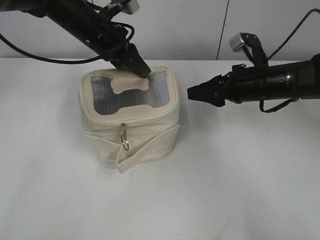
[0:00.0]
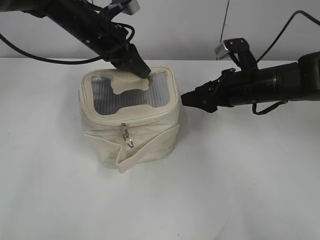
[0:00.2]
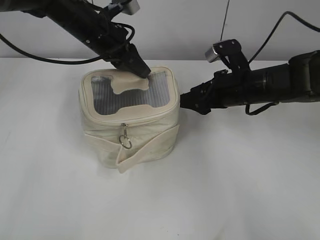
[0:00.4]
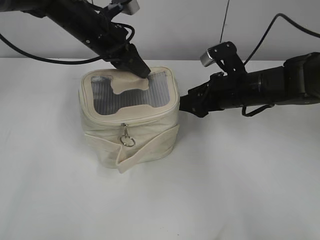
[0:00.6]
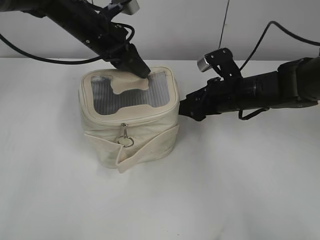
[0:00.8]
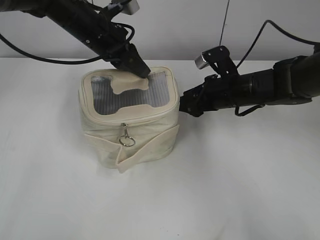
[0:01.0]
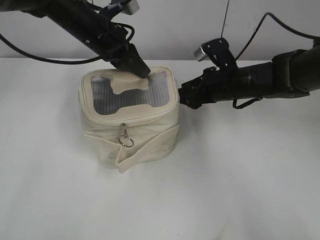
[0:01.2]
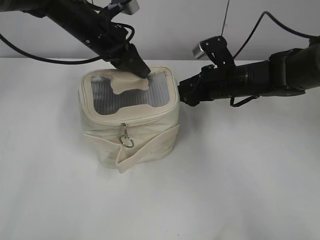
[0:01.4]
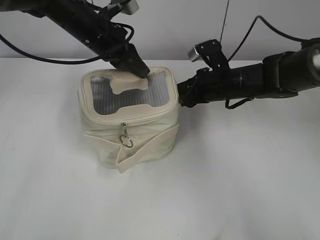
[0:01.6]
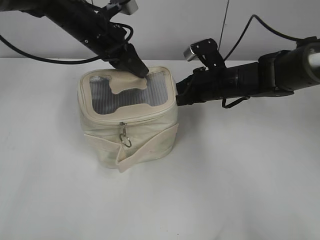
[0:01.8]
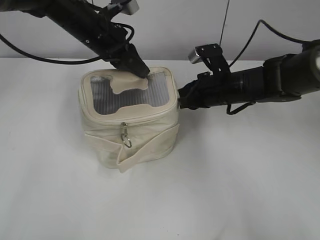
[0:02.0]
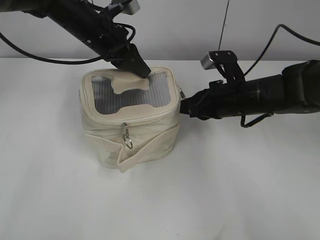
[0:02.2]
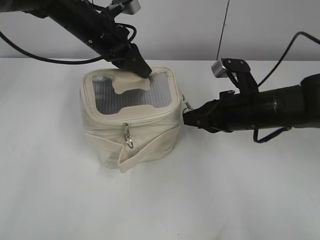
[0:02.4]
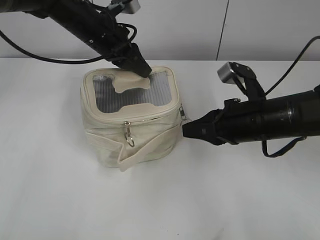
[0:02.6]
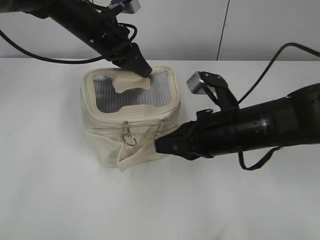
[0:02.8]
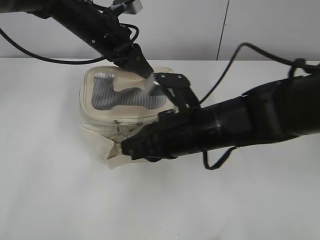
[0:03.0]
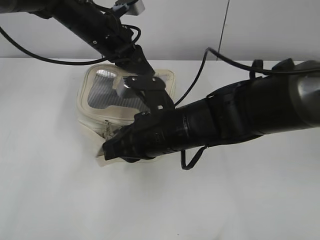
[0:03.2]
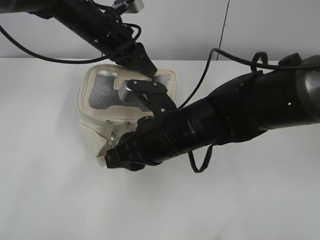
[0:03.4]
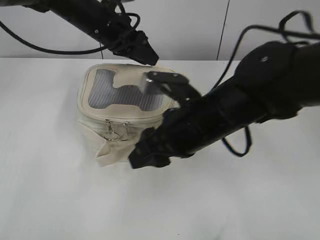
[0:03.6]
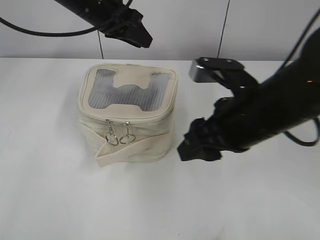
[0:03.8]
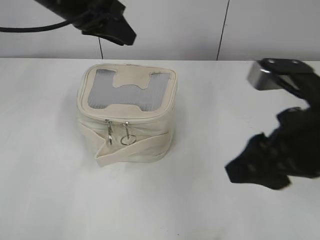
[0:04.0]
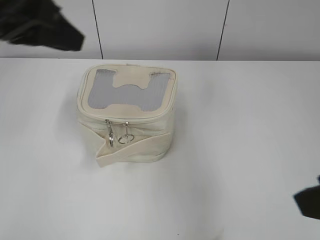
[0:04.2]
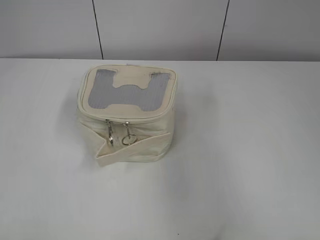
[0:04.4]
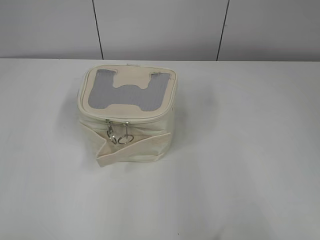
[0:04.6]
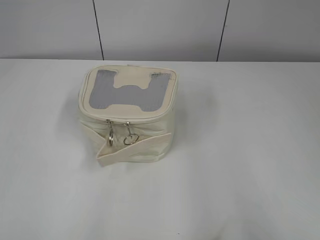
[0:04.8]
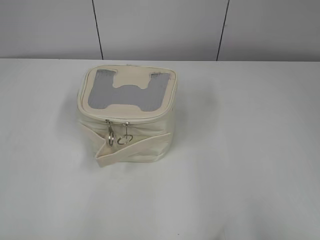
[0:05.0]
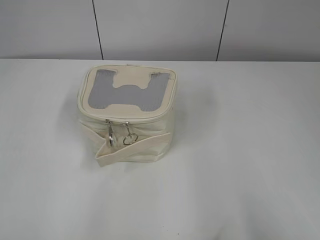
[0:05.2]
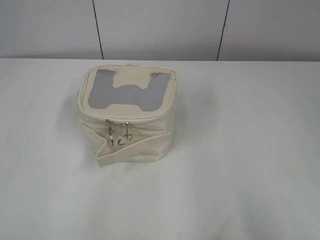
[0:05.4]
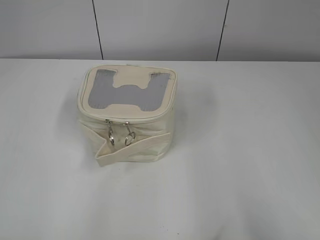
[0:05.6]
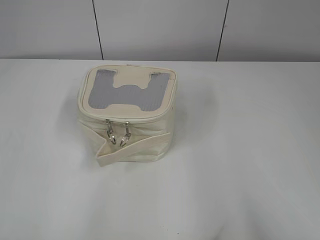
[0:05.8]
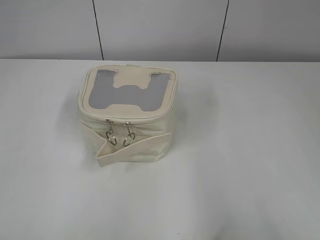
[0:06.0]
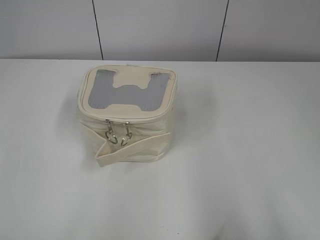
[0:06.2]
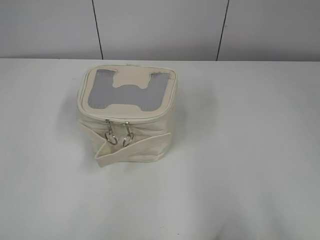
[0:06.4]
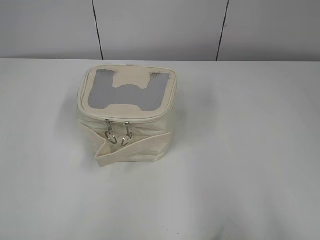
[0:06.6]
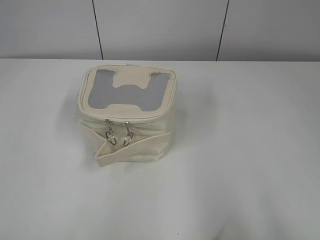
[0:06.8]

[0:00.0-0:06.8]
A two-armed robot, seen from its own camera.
Step, 0:00.0 to 0:03.4: Zip up the bag with your right hand.
0:00.0 to 0:01.4: The right gripper shifts by roughly 5 cm.
0:01.4 to 0:02.8: The right gripper heads backward, covering about 15 cm, and closes its fingers.
0:02.8 to 0:04.0: Both grippers move upward and backward, some 10 cm. The right gripper reaches approximately 10 cm to the left, then returns, and opens.
0:04.0 to 0:05.4: The left gripper goes some 40 cm backward and to the left, and opens its fingers. The right gripper moves backward and to the right, about 25 cm.

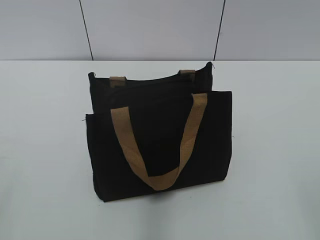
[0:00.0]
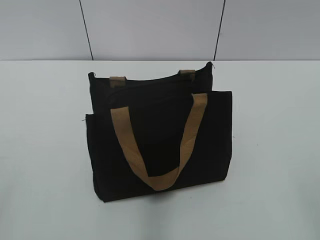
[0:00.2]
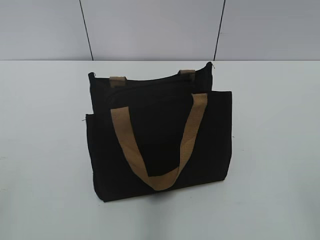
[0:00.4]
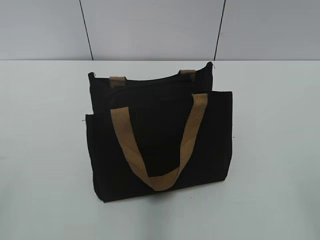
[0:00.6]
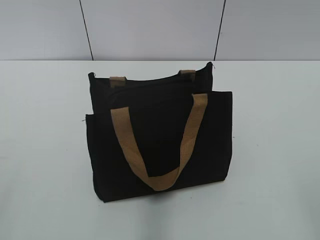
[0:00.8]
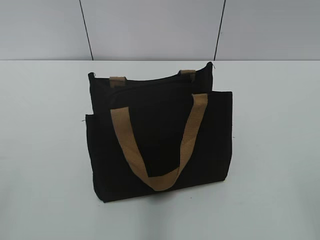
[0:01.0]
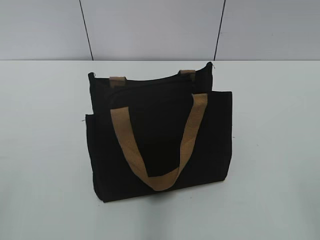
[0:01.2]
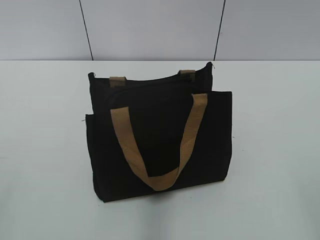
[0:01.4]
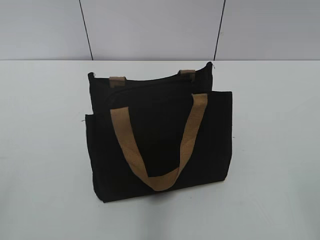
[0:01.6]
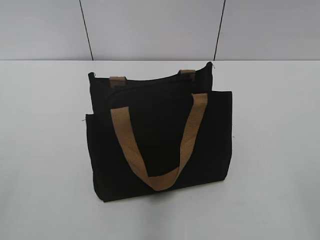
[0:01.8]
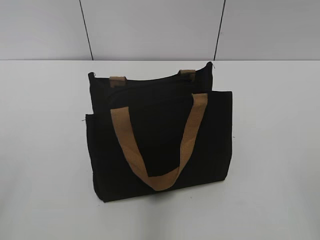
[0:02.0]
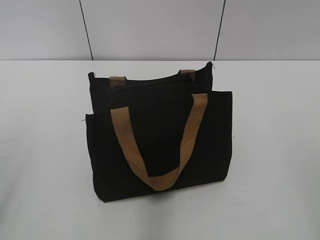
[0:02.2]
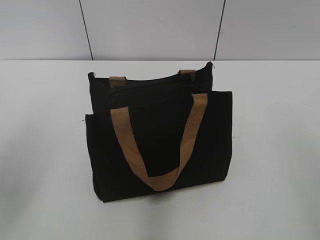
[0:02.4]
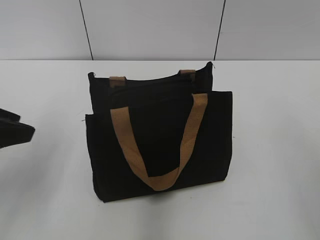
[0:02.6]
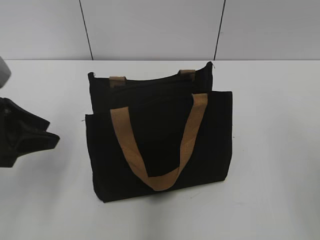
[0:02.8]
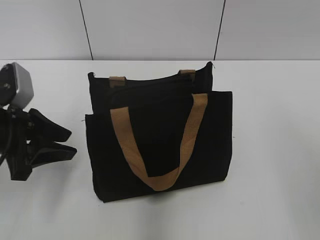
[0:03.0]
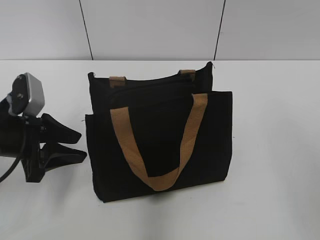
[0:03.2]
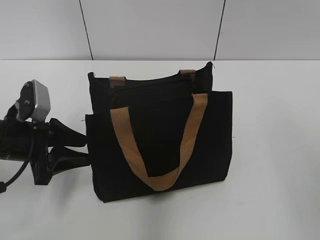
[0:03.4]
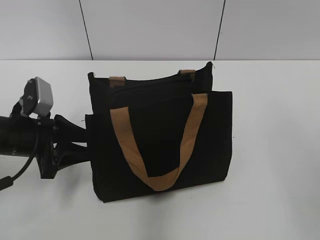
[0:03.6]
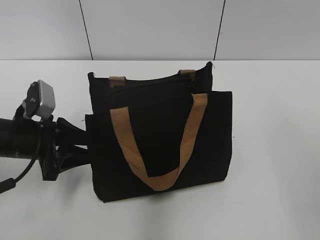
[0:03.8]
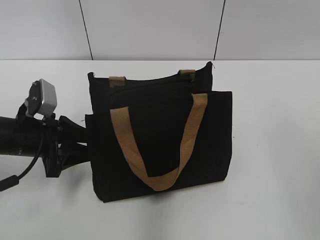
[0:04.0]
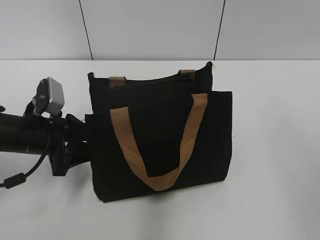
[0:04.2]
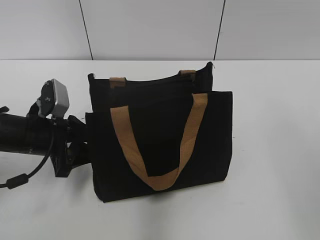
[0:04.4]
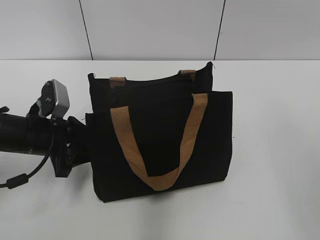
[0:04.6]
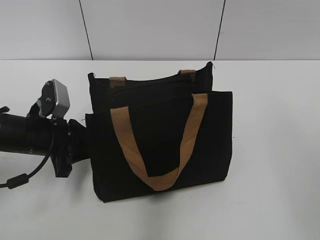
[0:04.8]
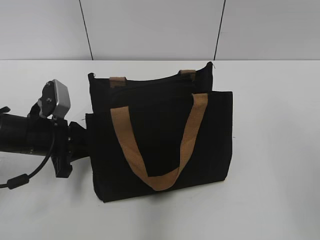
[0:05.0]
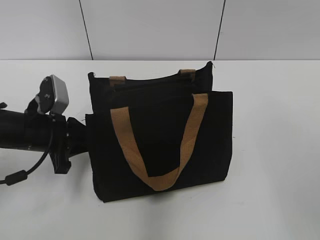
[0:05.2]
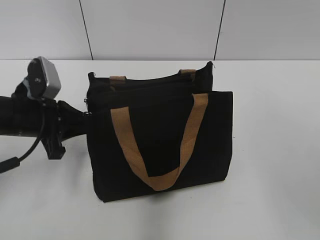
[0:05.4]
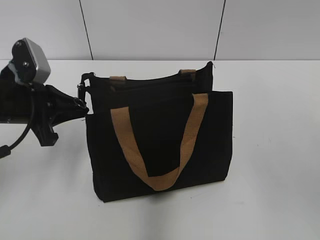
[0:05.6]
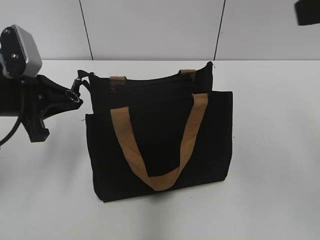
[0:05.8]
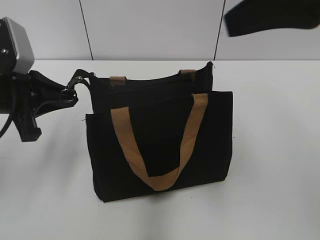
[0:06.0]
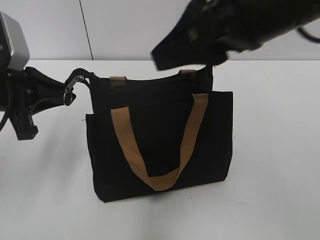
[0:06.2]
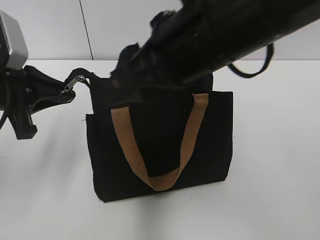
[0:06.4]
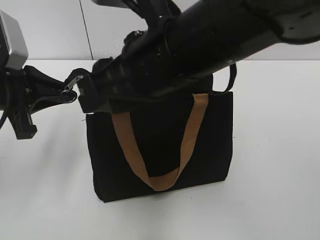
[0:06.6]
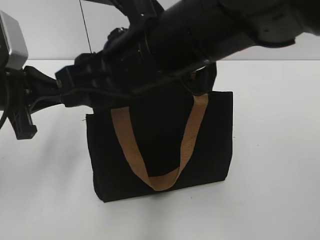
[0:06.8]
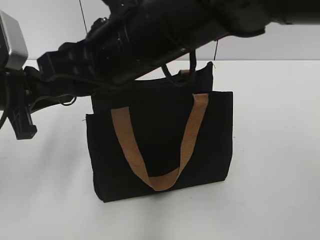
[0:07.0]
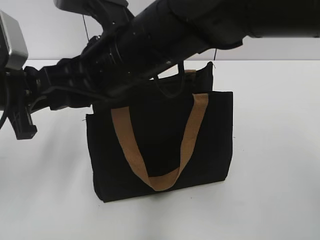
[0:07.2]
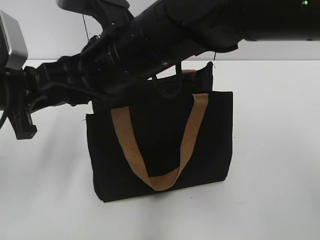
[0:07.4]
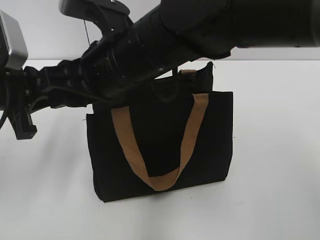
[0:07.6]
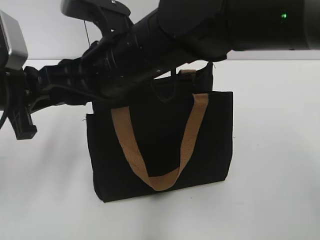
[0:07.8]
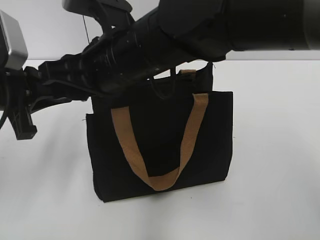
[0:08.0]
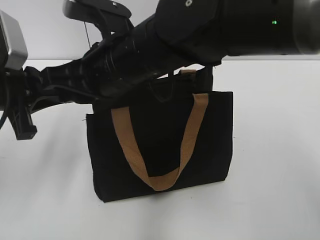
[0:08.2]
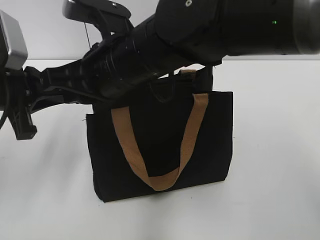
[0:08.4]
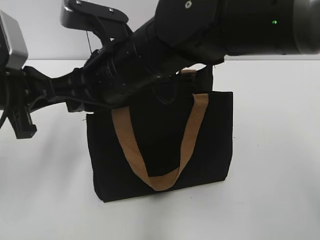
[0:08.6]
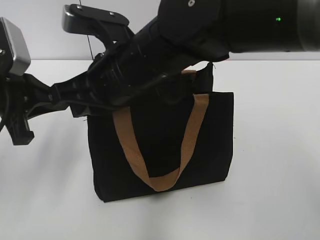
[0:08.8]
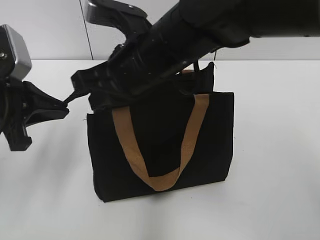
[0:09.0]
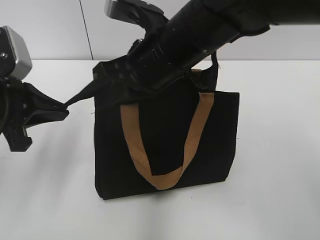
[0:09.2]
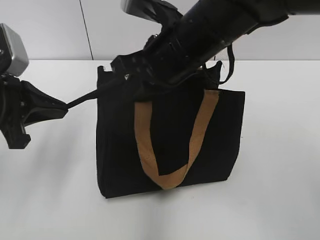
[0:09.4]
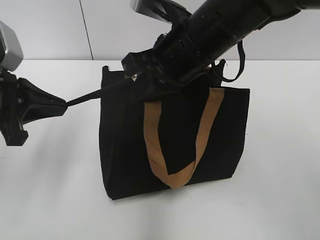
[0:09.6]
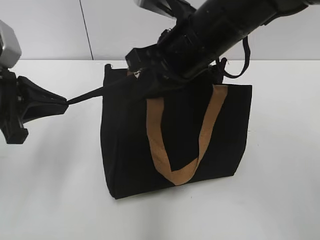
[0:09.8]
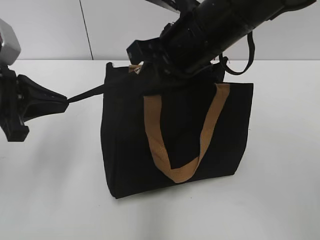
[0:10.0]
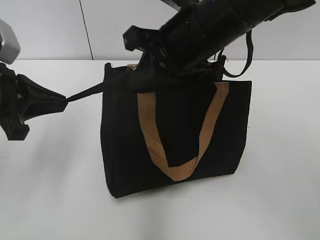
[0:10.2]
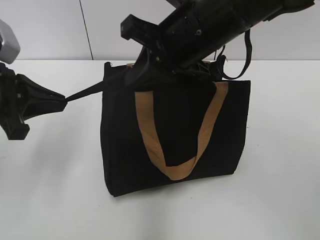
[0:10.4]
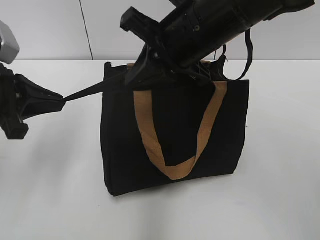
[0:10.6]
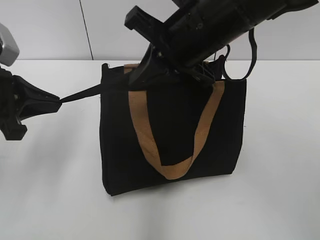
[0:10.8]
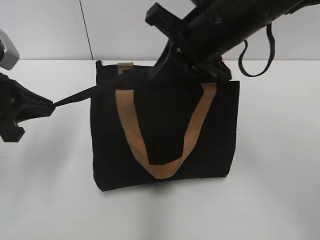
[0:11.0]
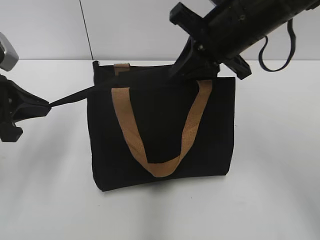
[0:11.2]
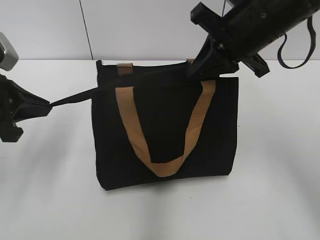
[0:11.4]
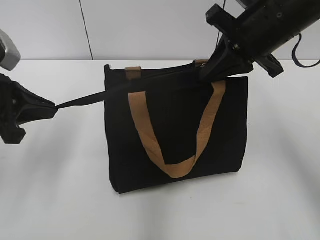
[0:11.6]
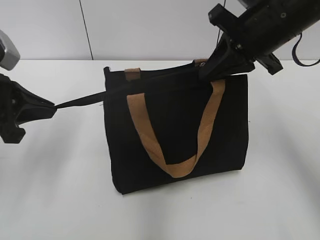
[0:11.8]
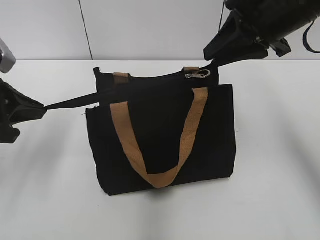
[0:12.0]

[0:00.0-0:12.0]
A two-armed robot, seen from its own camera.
Step, 0:00.0 to 0:11.8: Zip up the bag with your right hand.
0:01.6 to 0:03.0: The left gripper is displaced forward and downward by roughly 25 cm.
0:03.0 to 0:04.4: The left gripper is displaced downward by roughly 5 cm.
0:04.4 to 0:06.0: The left gripper goes roughly 10 cm upward, and closes its fingers; the right gripper travels forward and to the left by roughly 15 cm.
0:06.0 to 0:07.6: The right gripper goes some 25 cm to the left and downward.
0:07.6 to 0:09.0: The right gripper closes its fingers.
0:09.0 to 0:10.4: The right gripper moves to the right, approximately 5 cm.
0:10.4 to 0:12.0: The right gripper heads to the right, covering roughly 10 cm, and opens its fingers.

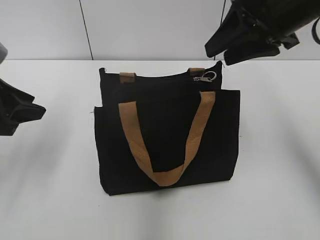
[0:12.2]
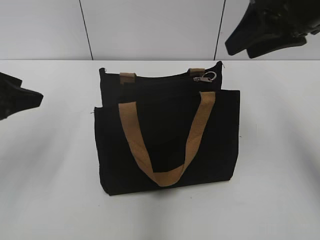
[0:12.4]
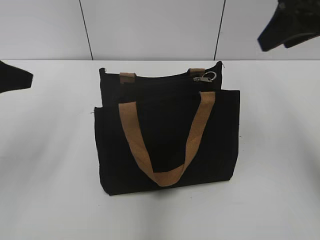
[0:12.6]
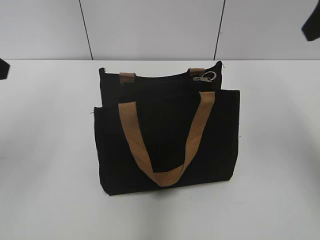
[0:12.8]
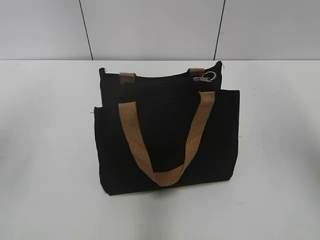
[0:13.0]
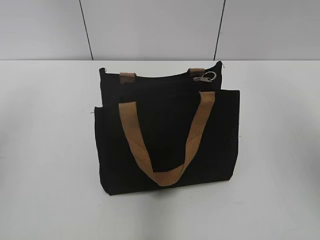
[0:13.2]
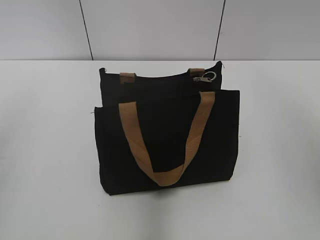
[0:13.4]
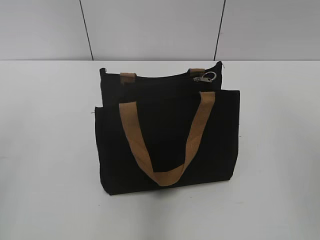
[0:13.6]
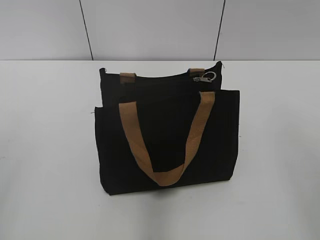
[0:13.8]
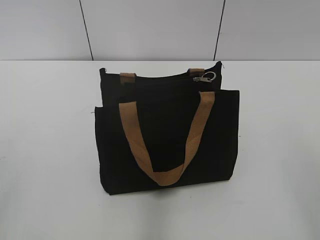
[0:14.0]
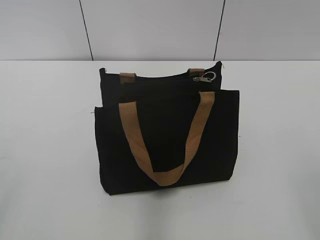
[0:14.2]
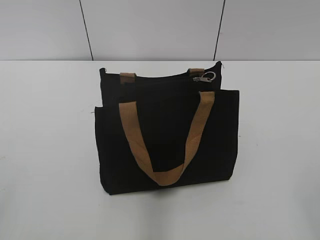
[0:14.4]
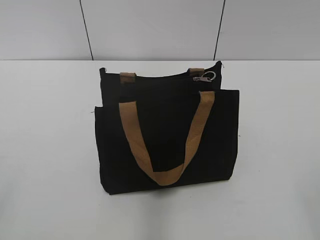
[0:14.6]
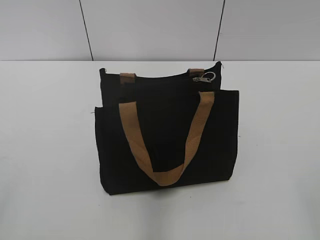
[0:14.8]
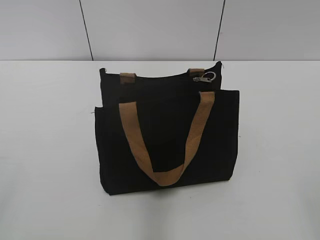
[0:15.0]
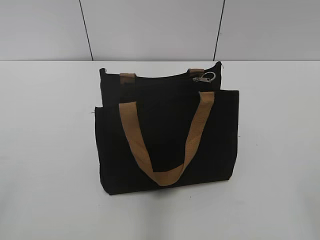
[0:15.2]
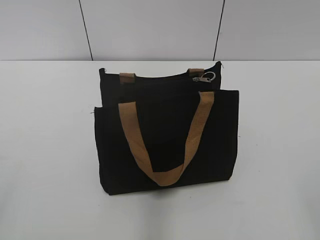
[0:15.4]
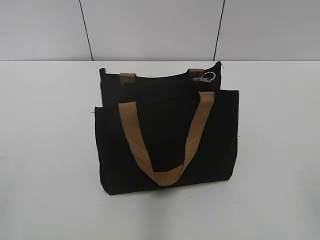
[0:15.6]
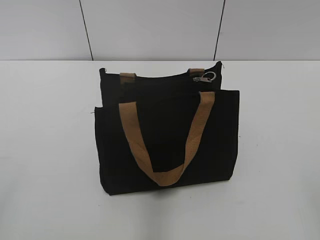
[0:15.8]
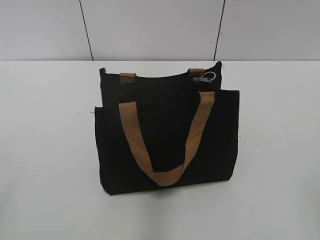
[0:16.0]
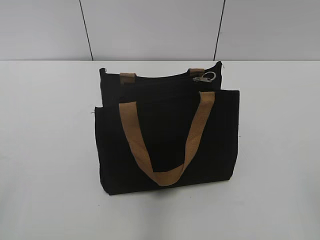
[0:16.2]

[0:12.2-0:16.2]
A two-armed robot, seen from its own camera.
0:12.2 to 0:13.6: The right gripper moves backward, upward and to the right, roughly 25 cm, while the left gripper shifts roughly 20 cm upward and backward.
